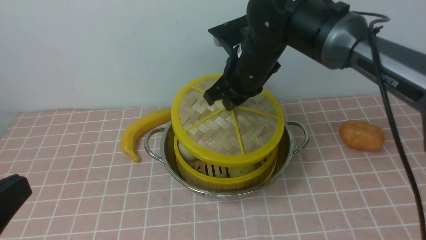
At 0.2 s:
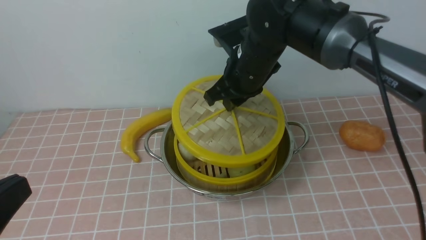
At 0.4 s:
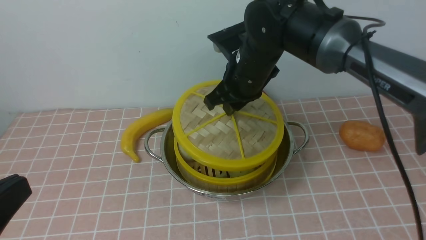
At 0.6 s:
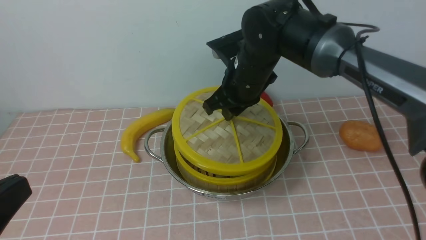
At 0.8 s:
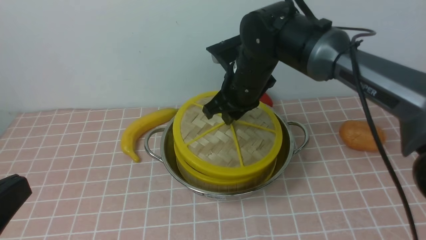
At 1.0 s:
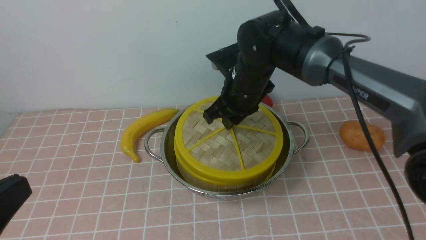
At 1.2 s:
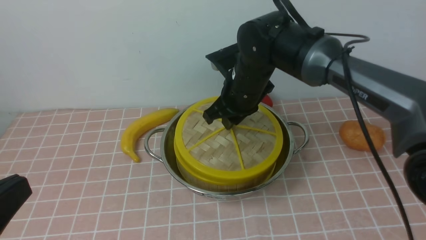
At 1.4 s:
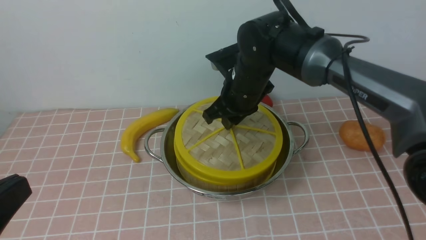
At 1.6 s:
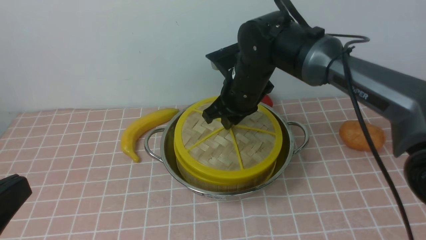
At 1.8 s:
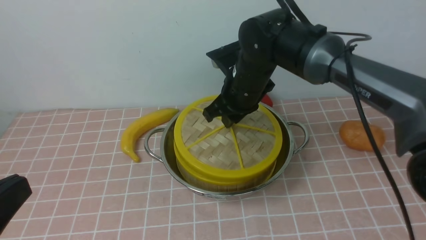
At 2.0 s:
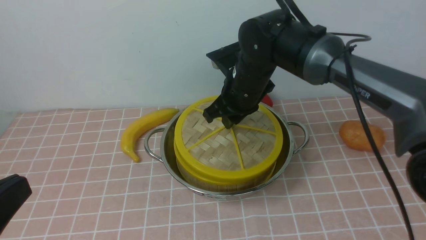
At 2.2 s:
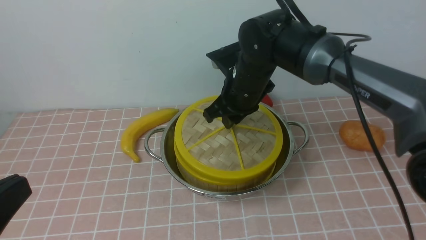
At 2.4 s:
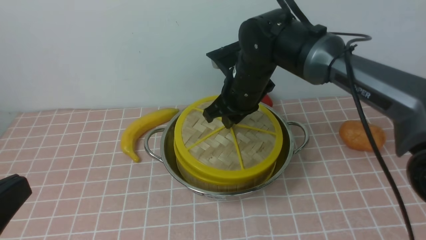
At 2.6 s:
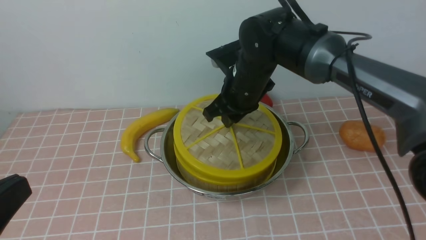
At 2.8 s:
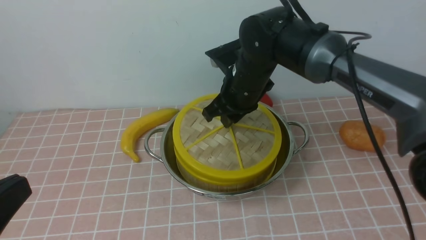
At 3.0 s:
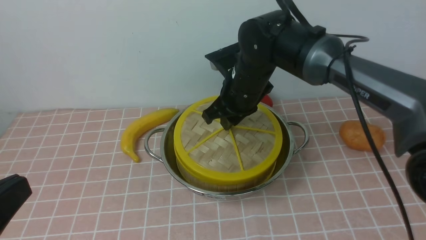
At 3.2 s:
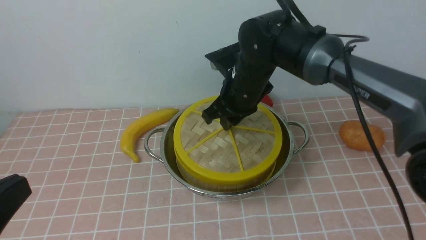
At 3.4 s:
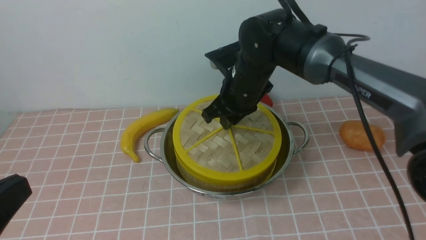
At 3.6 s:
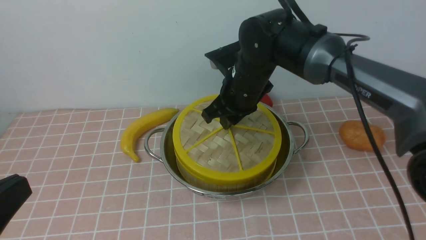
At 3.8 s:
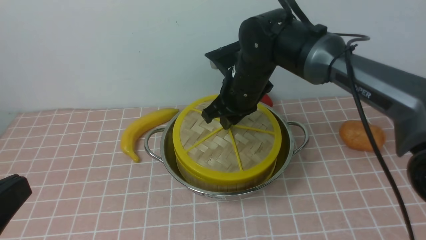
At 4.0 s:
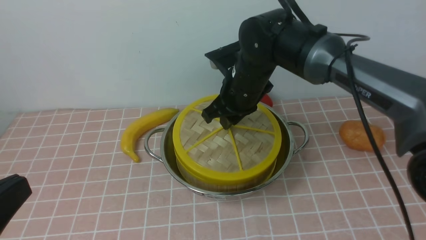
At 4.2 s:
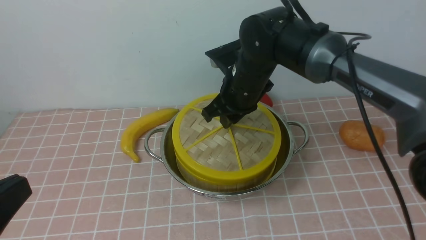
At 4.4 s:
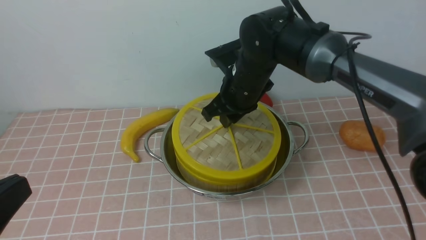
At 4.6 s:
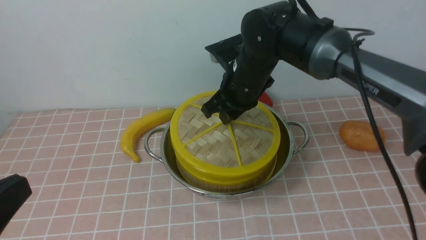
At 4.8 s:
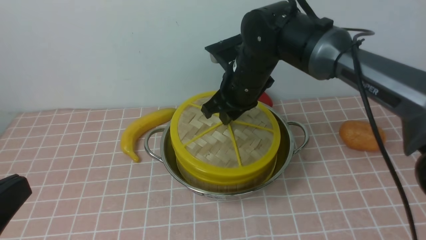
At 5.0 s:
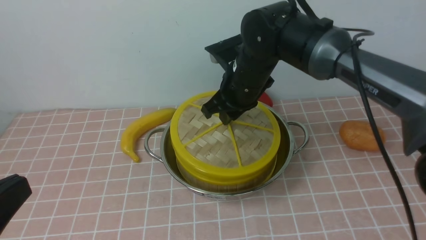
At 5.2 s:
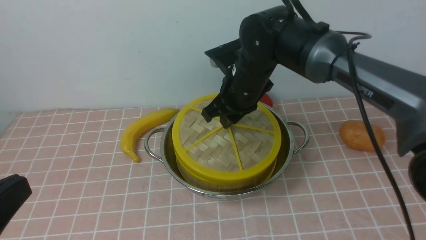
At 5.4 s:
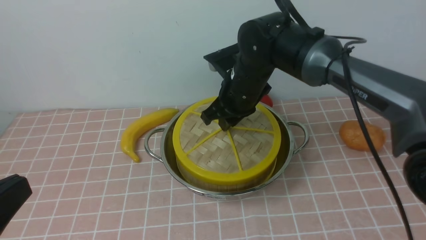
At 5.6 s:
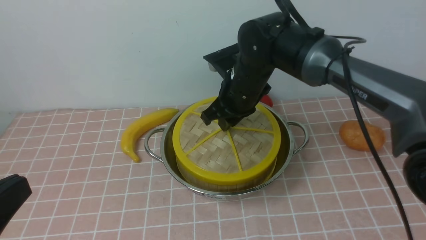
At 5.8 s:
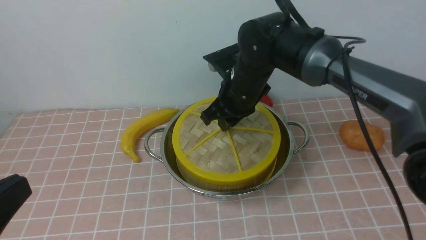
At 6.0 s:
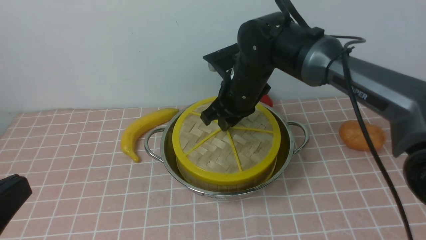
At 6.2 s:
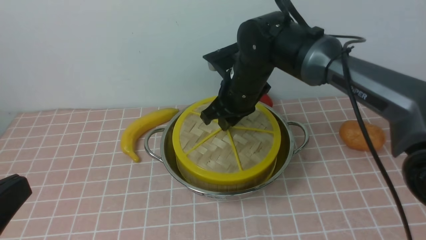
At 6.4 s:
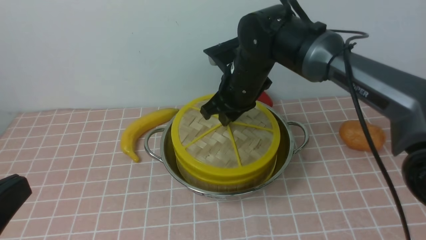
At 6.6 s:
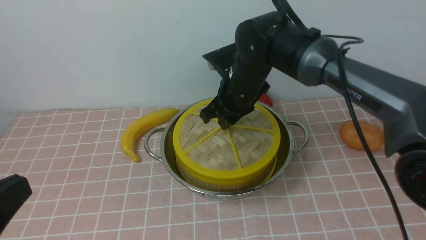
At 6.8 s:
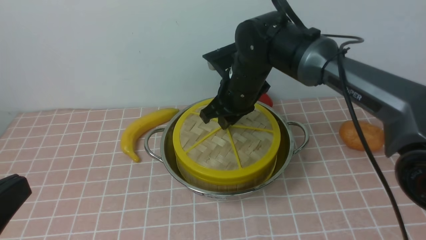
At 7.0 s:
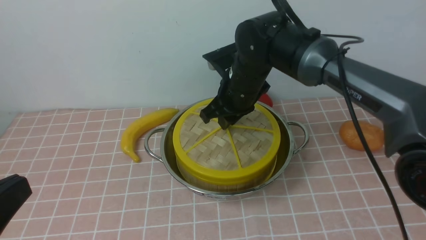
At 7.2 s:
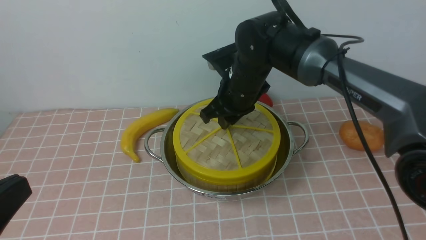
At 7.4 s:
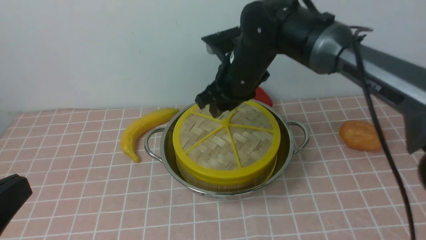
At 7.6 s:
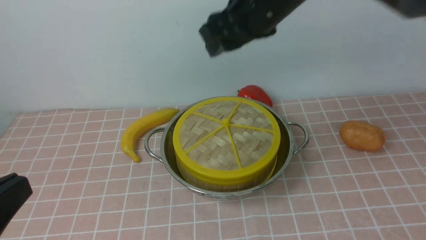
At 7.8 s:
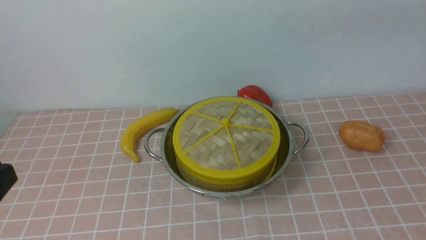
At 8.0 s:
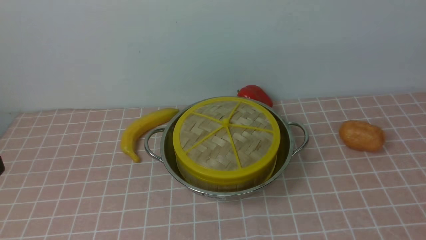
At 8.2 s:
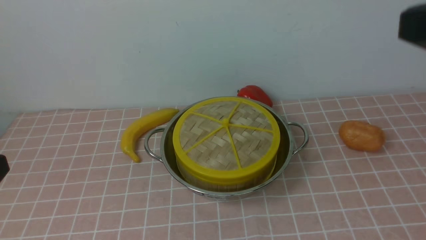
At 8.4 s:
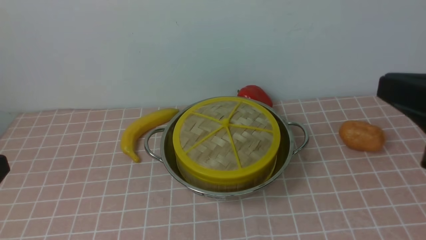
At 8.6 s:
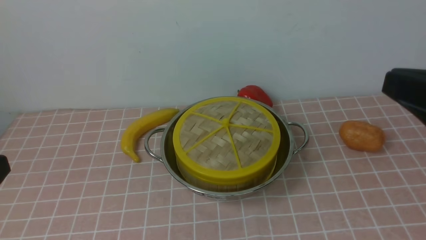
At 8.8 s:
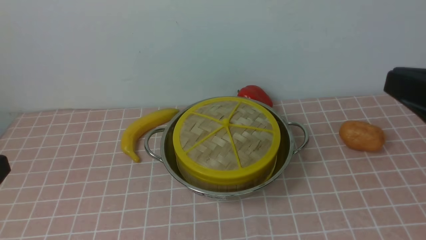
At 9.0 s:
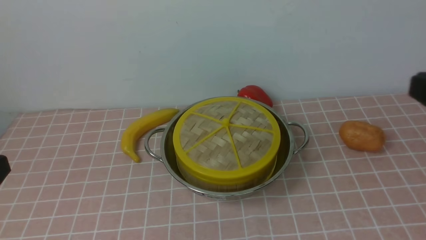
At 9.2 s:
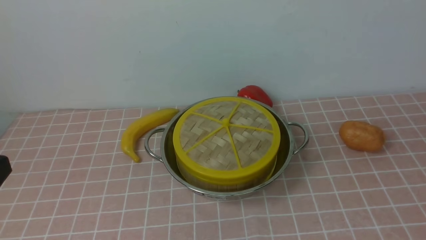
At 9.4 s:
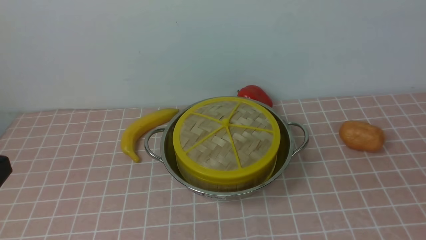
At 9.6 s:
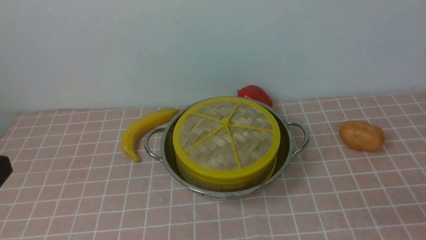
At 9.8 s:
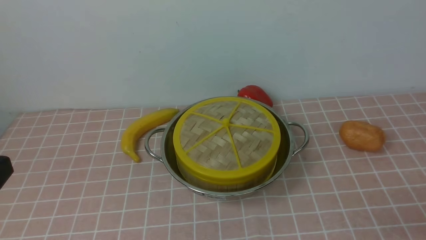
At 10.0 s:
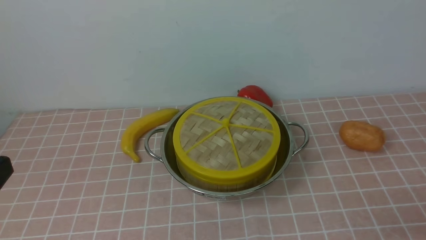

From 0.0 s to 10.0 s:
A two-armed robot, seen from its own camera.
Task of the whole recording: place the steamer in the pot on the pink tablecloth, and put the lid on the steamer.
Step, from 0.0 s to 7.4 s: use the right arm to place the steamer lid on the steamer.
From 0.0 s to 1.4 s: The grippers stay close to where they were, moving slightly.
From 1.4 s to 4.2 s: The two grippers keep their place.
From 4.2 s to 7.2 s: The two grippers keep their place.
From 7.2 s to 8.6 s: The right gripper is displaced backward, to the right and upward by approximately 35 cm, and closes.
From 8.6 s to 10.0 s: The right gripper shifts roughly 20 cm downward, to the right and backward, and opens up.

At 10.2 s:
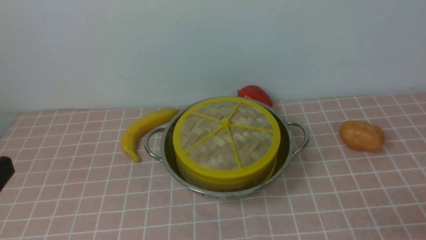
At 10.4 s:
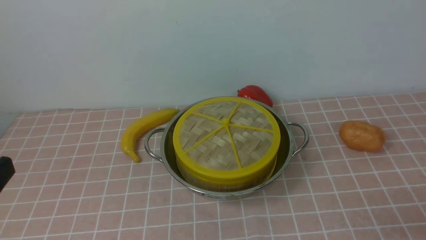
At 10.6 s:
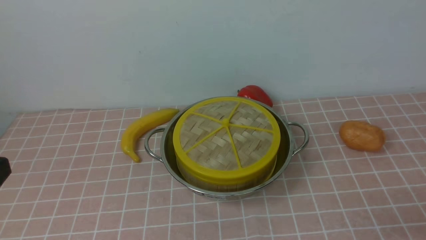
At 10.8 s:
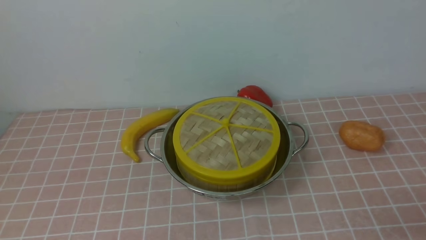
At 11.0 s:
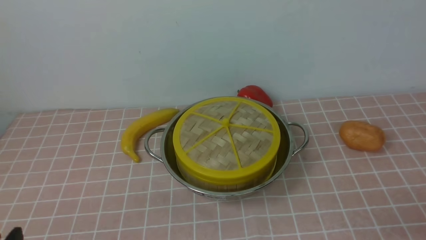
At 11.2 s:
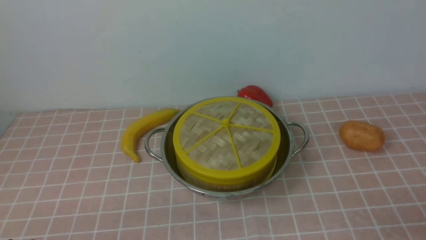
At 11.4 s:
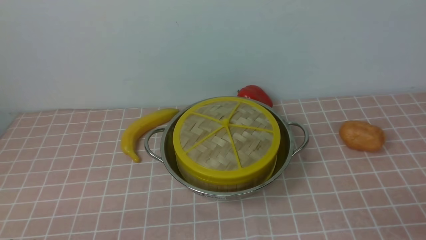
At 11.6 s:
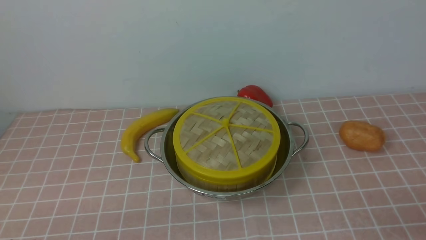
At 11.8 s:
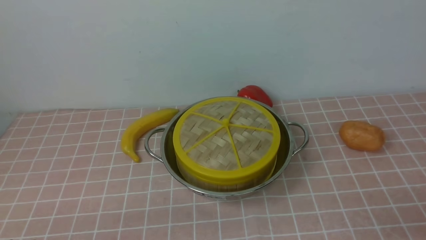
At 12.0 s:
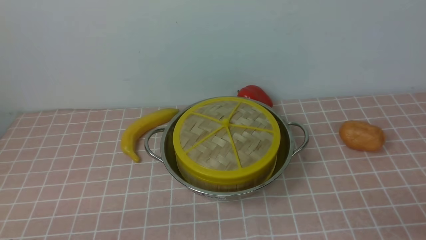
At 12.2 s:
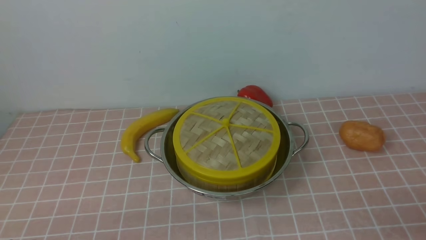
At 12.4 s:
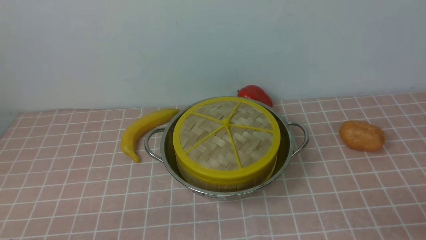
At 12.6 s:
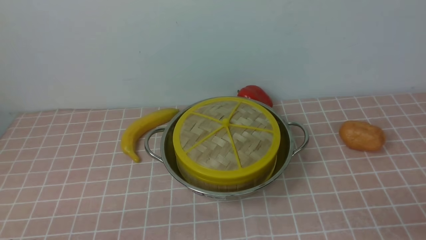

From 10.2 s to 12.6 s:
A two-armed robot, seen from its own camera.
Task of the whole recording: place the steamer in the pot on the pink tablecloth, and put the lid on the steamer.
From 11.4 s to 12.6 s: Both grippers stay about where they are.
